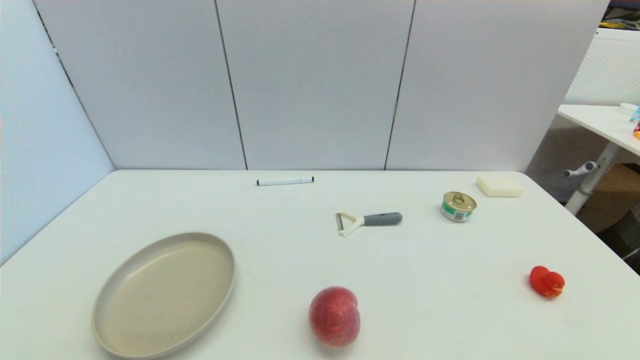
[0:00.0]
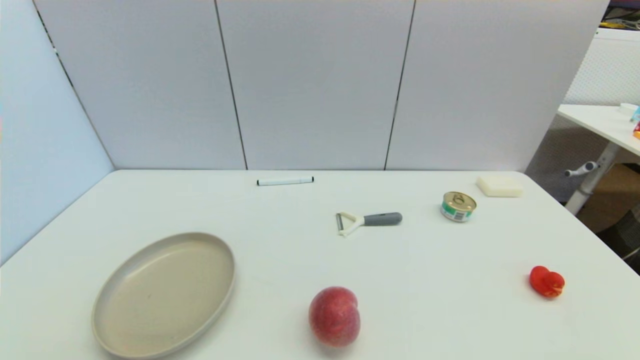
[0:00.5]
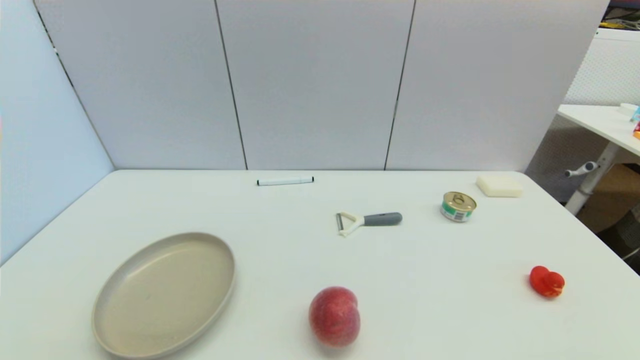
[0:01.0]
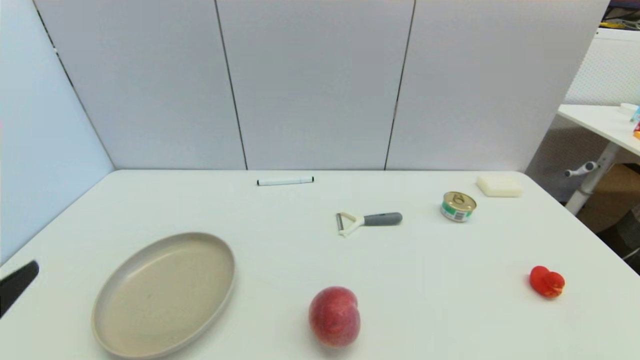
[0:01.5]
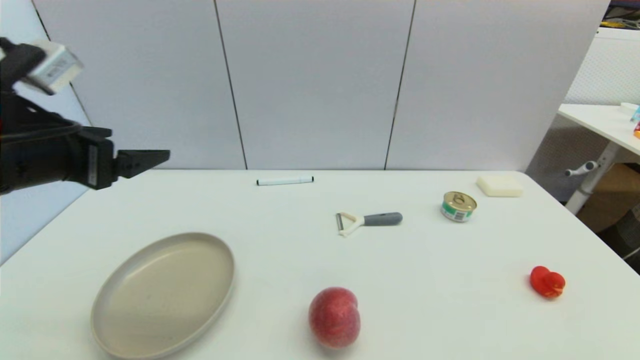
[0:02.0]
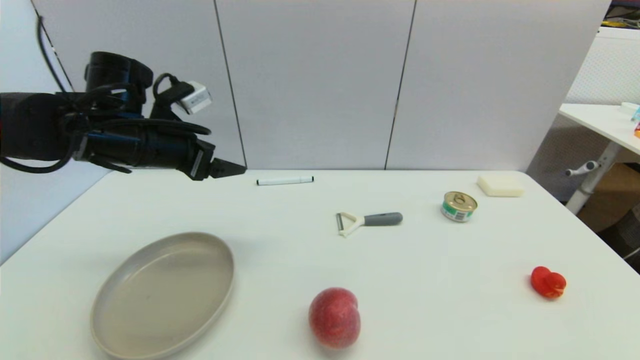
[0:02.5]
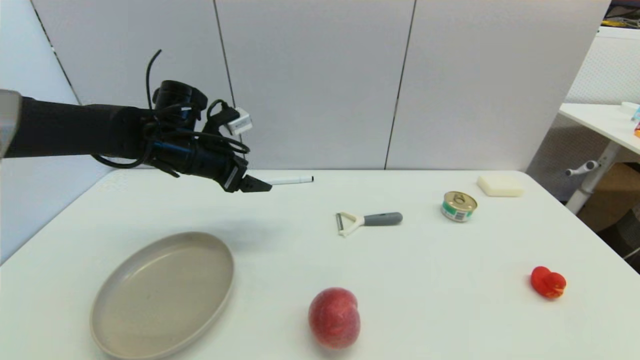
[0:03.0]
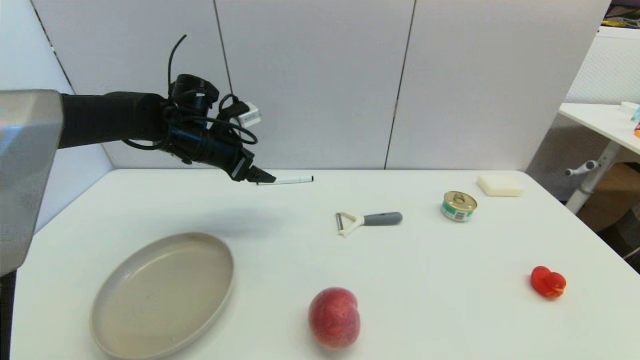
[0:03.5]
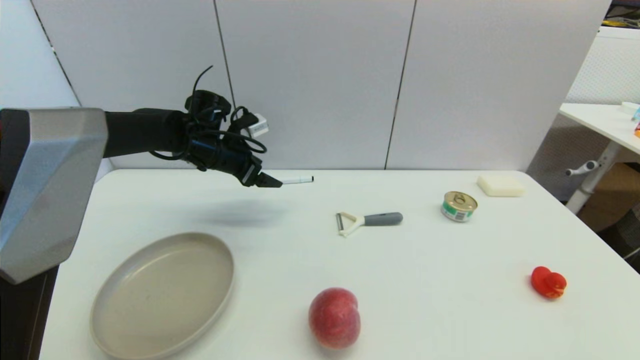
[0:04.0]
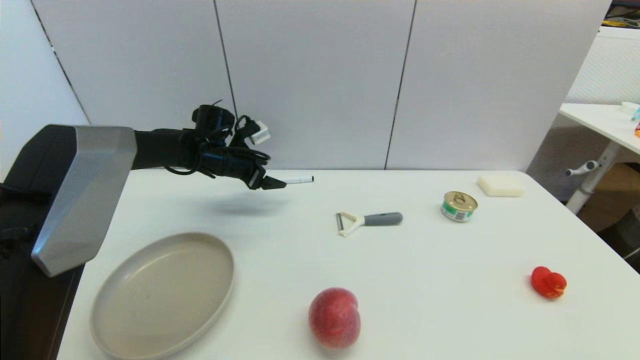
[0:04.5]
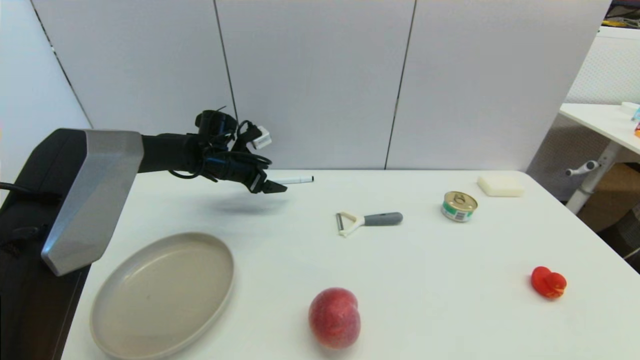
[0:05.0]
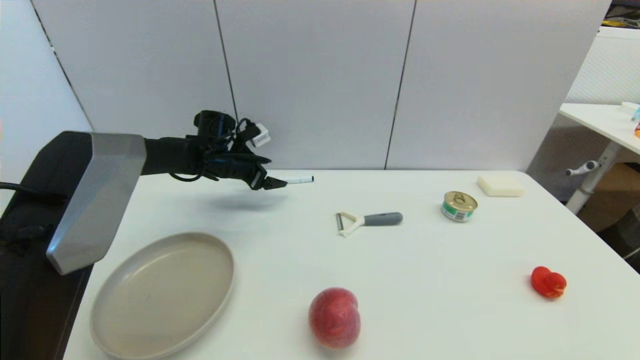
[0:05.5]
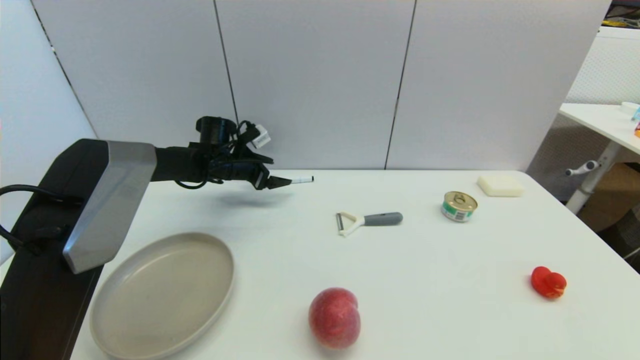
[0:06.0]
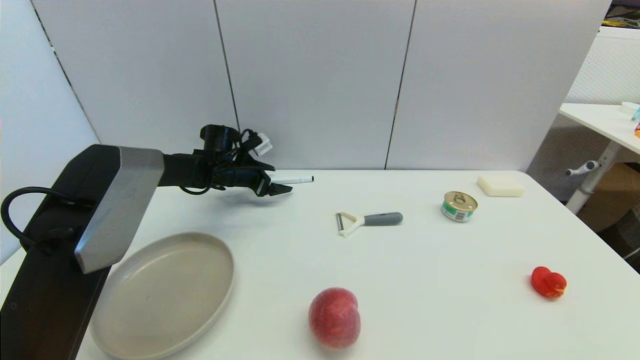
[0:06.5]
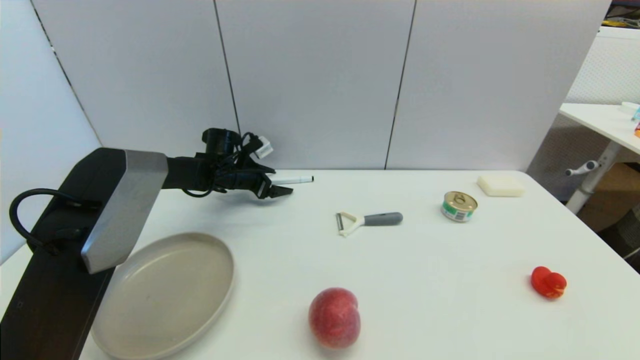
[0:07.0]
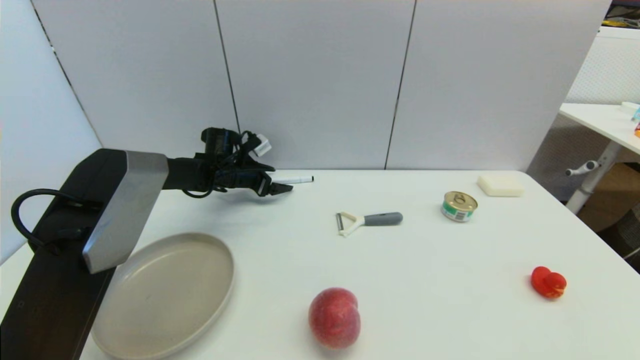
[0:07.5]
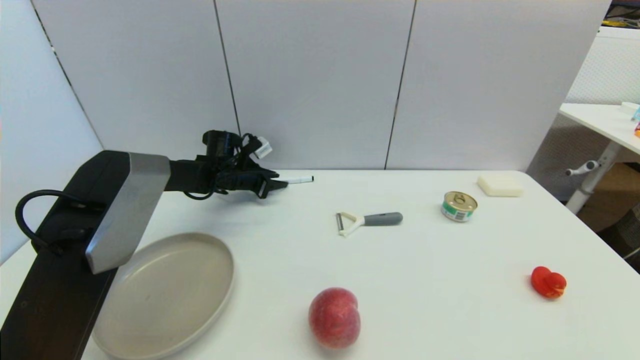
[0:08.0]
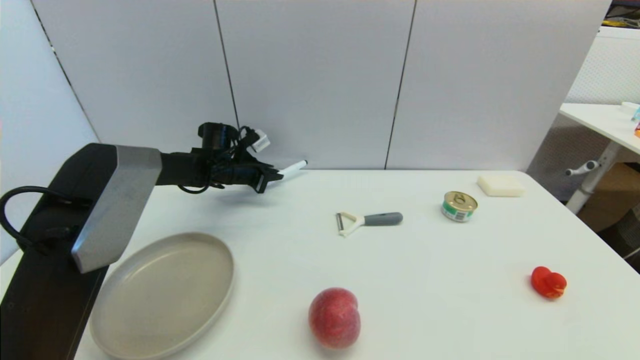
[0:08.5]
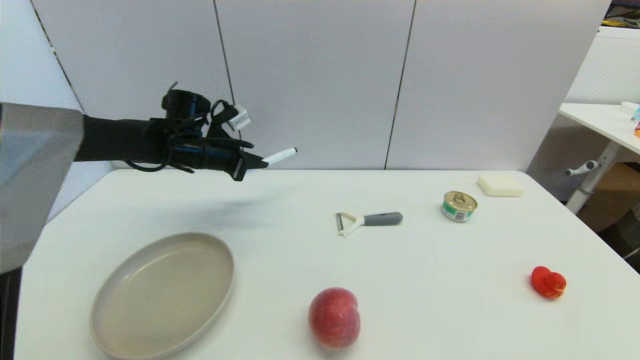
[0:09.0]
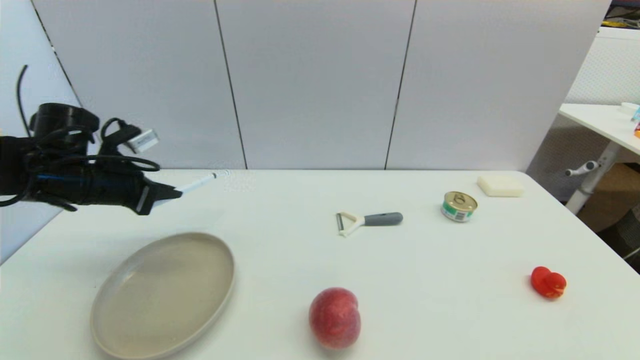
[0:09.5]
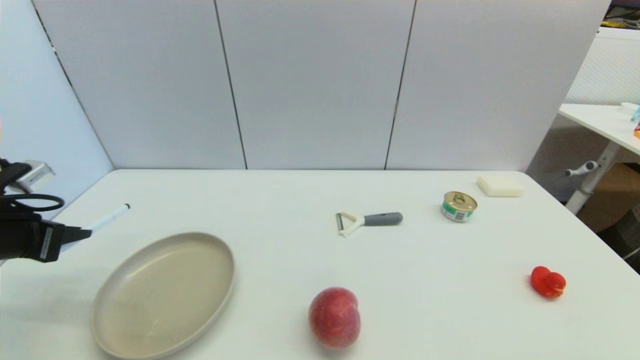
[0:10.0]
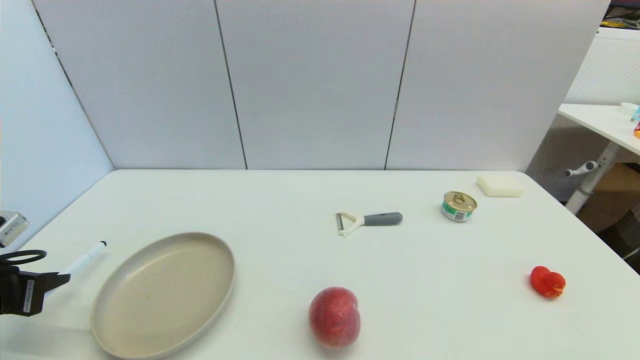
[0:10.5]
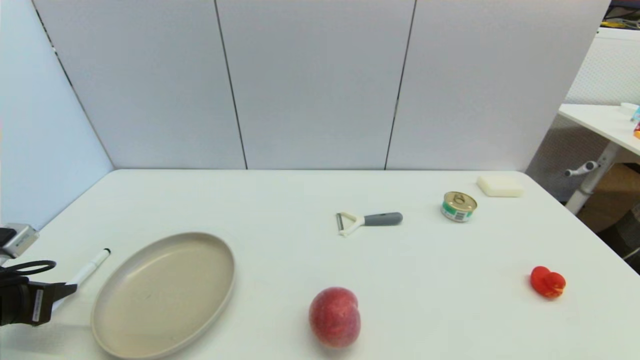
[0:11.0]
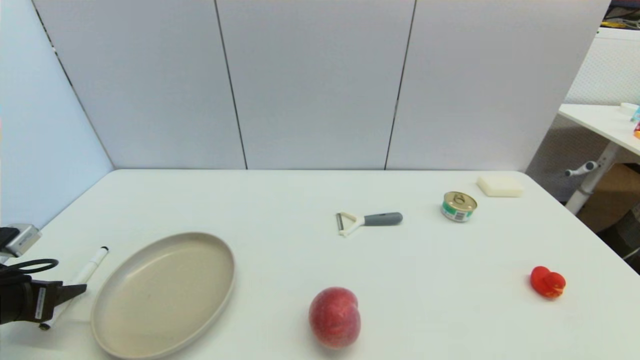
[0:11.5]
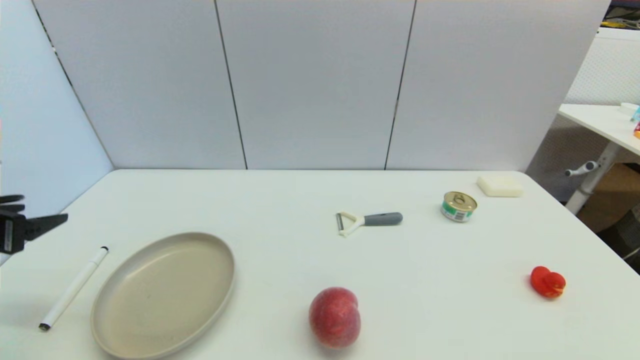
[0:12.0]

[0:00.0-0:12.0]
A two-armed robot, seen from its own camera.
Task of the whole recording: put the black marker in the designated position.
Step, 0:01.5 to 0:08.0: Grasp the Marker pen with left gripper.
Step, 0:08.5 to 0:11.5: Place the Marker pen on the table with left gripper.
0:00.0 to 0:02.0: The left gripper is displaced forward and upward by some 30 cm.
0:02.0 to 0:04.0: The left gripper heads forward and downward, covering about 25 cm.
0:04.0 to 0:06.0: The left gripper moves downward and forward, roughly 10 cm.
0:06.0 to 0:08.0: The left gripper closes its fingers.
0:08.0 to 0:10.0: The left gripper shifts some 35 cm backward and to the left.
0:10.0 to 0:12.0: The left gripper goes downward and returns, roughly 5 cm each way, and opens up.

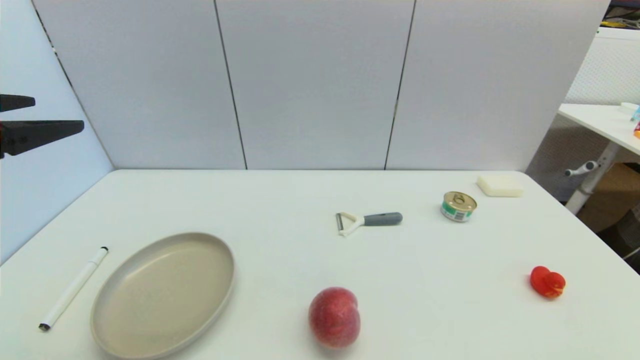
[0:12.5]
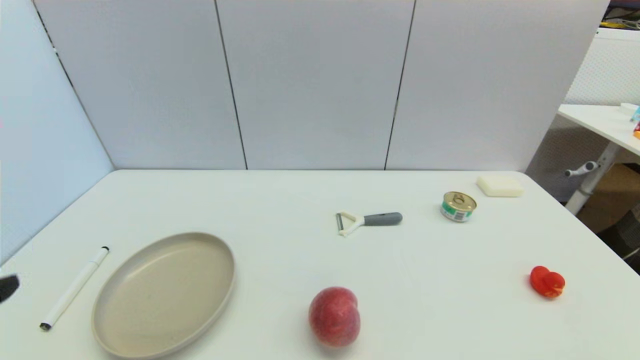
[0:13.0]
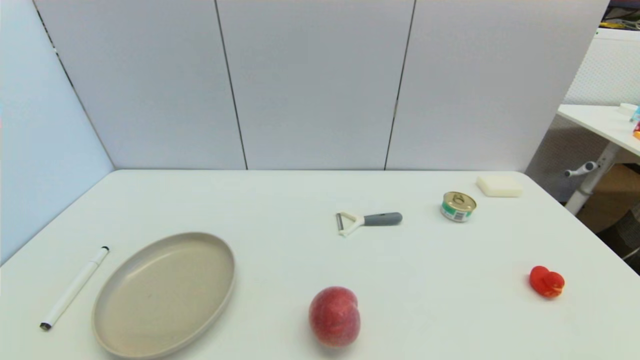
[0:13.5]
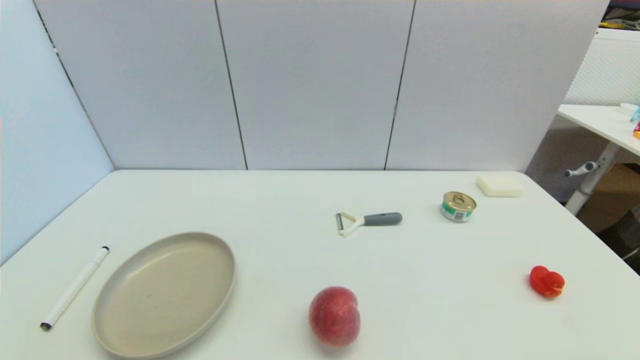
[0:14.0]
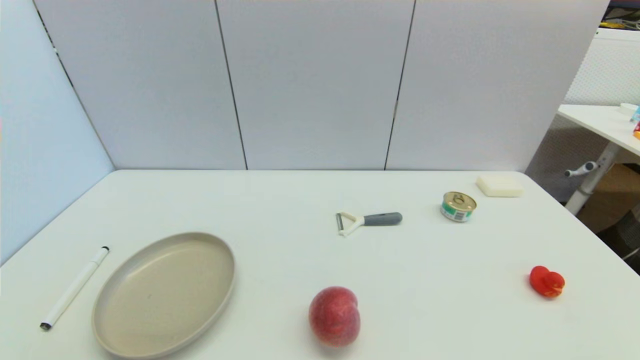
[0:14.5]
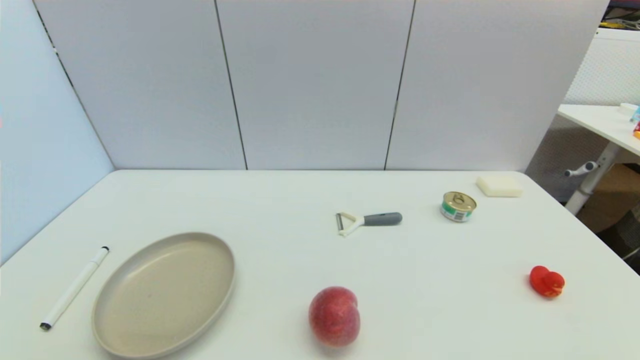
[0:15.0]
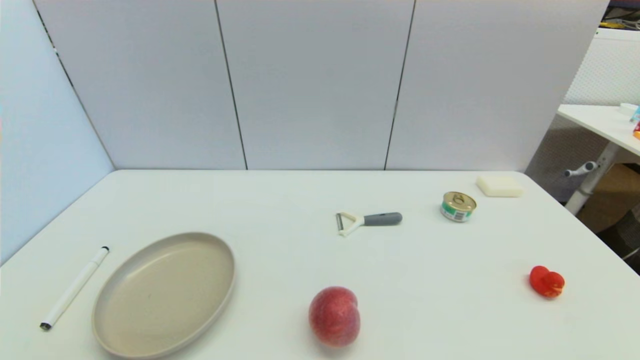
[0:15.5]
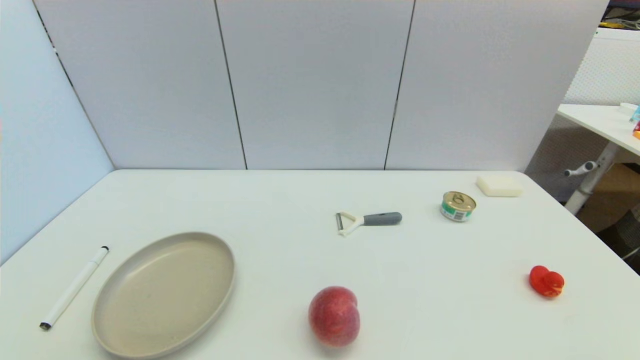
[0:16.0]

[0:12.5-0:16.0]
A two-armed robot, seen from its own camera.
Task of the whole recording: put the black marker in the designated position.
0:12.5 to 0:14.5: The left gripper goes about 30 cm downward and backward.

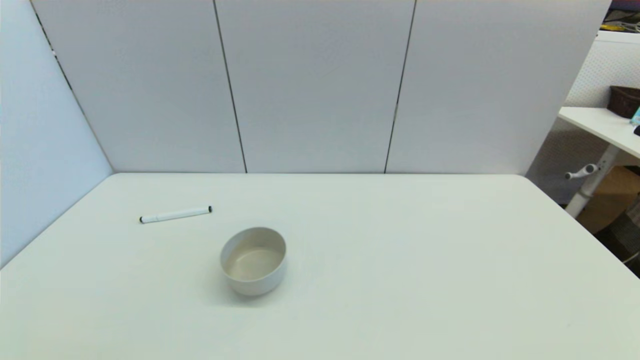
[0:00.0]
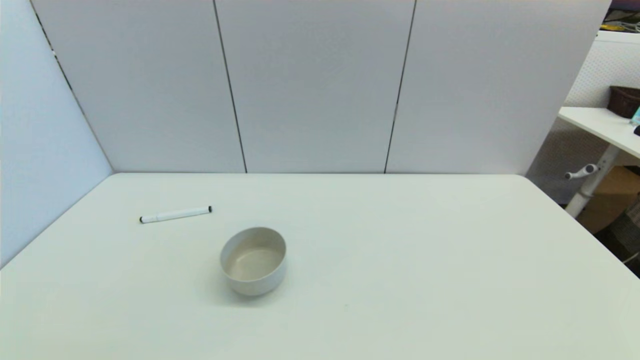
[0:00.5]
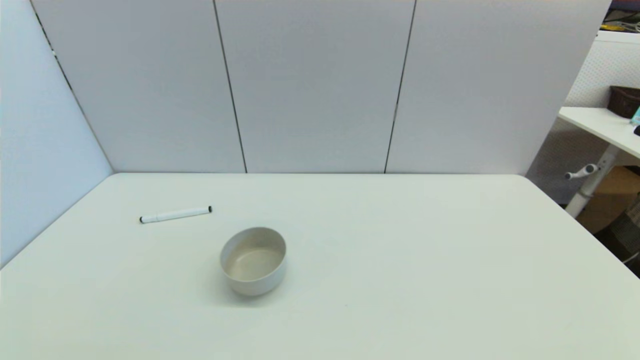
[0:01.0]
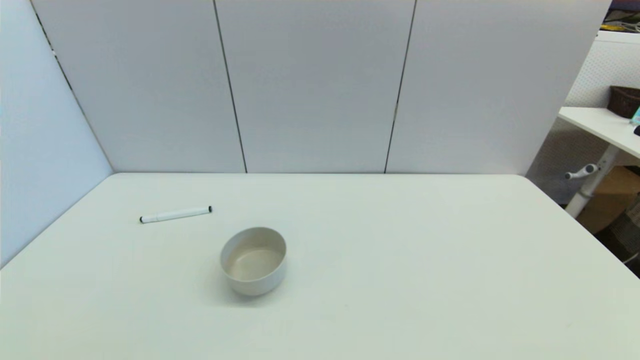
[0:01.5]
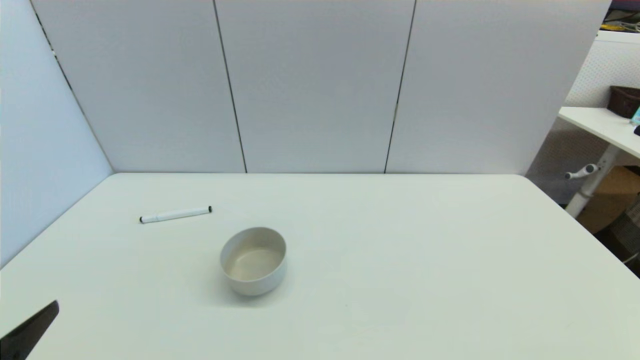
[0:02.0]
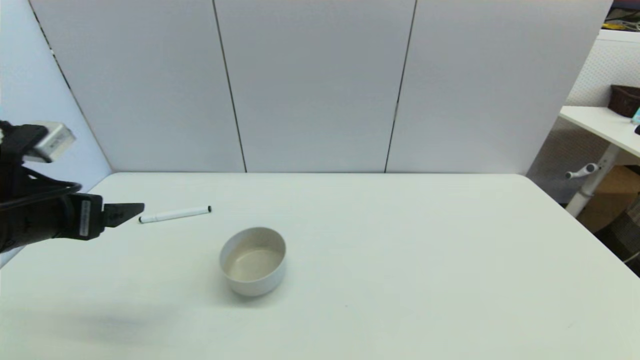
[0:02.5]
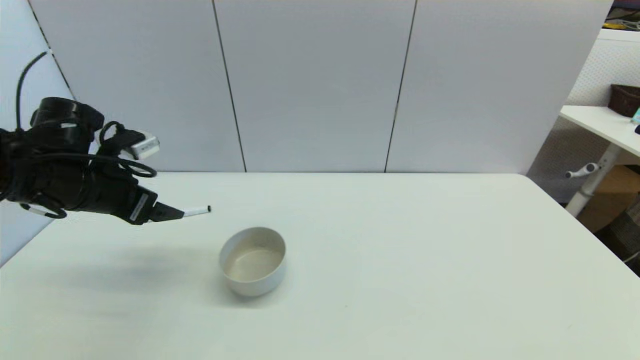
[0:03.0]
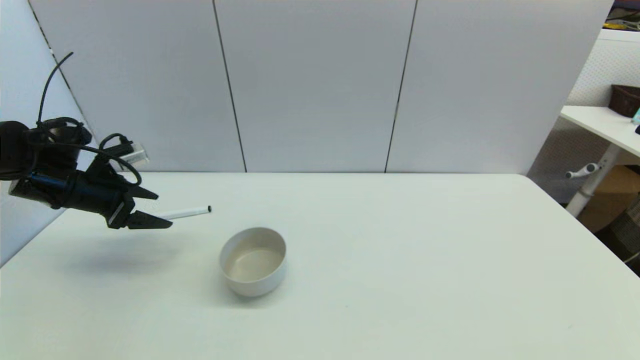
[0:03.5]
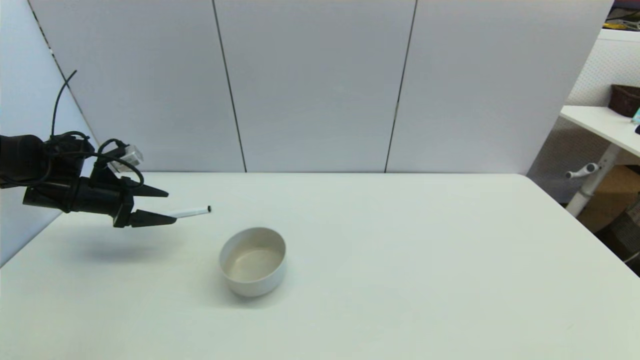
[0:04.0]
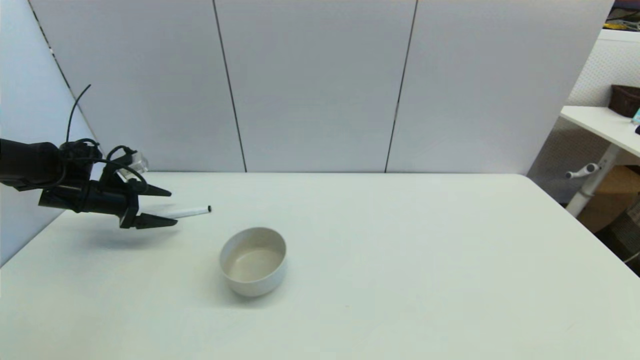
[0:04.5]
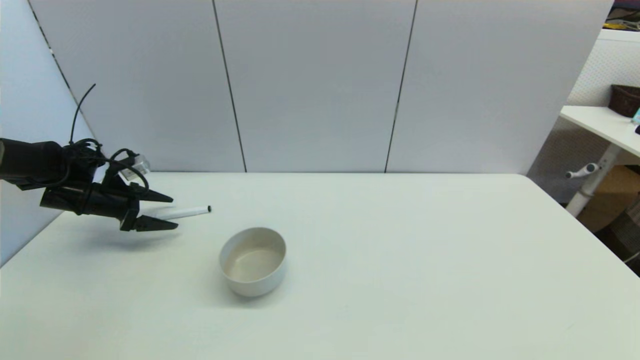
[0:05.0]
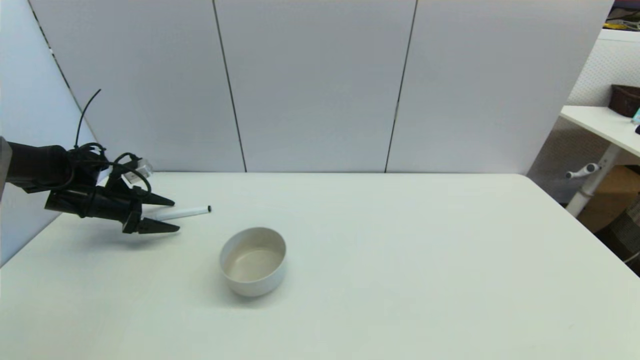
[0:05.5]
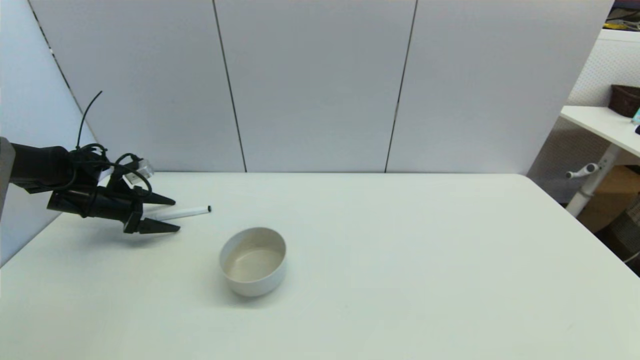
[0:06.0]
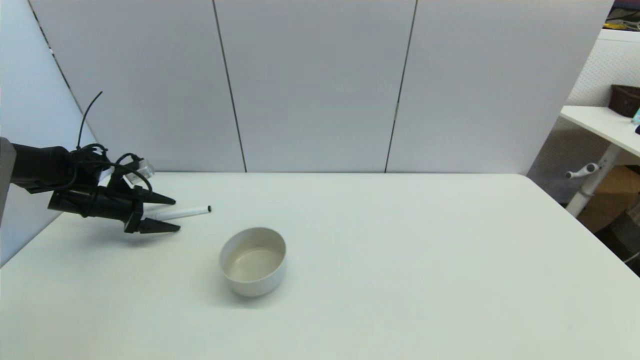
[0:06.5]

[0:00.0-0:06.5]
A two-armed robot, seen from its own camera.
Task of the whole recording: put the black marker in the designated position.
0:00.0 to 0:02.0: The left gripper heads upward and forward, covering approximately 10 cm.
0:02.0 to 0:04.5: The left gripper is displaced forward by roughly 35 cm.
0:04.5 to 0:06.5: There are only small adjustments of the grippers.
